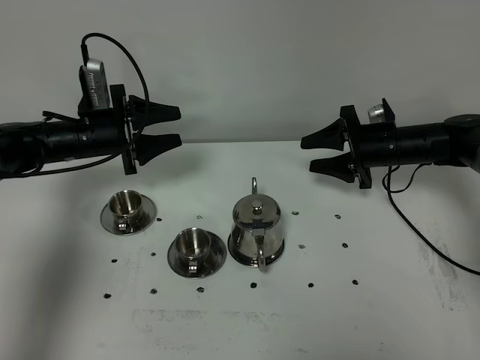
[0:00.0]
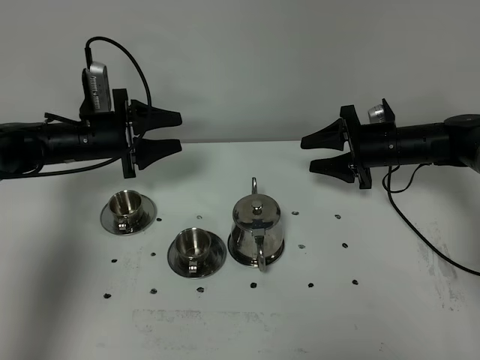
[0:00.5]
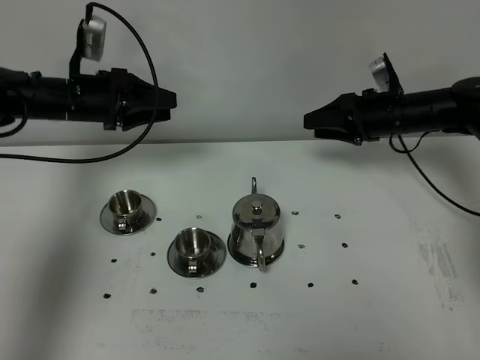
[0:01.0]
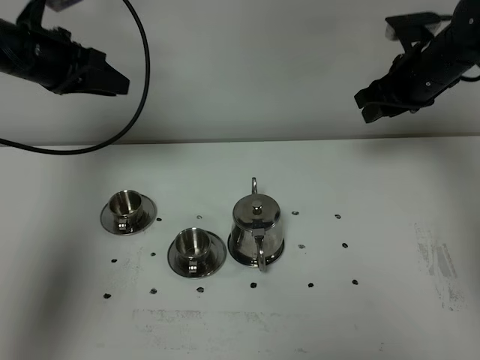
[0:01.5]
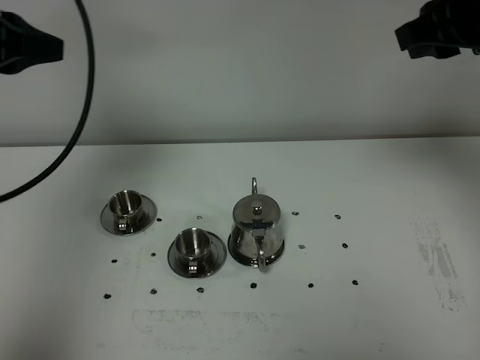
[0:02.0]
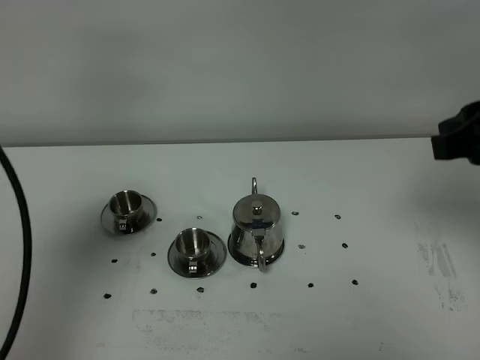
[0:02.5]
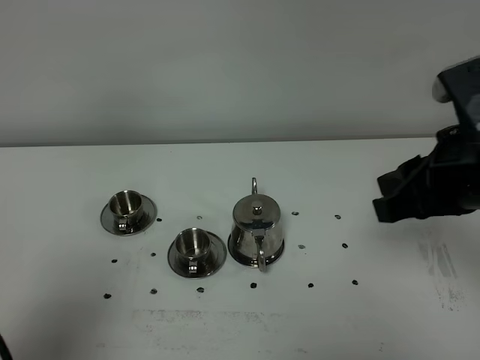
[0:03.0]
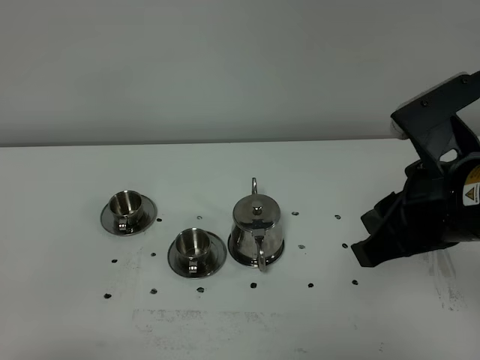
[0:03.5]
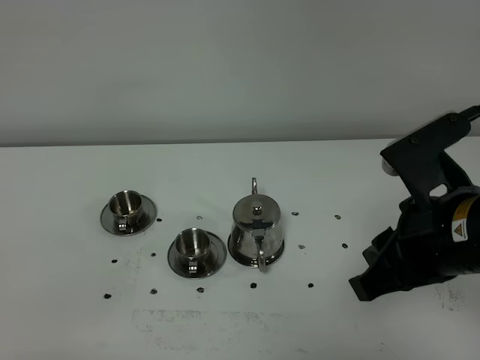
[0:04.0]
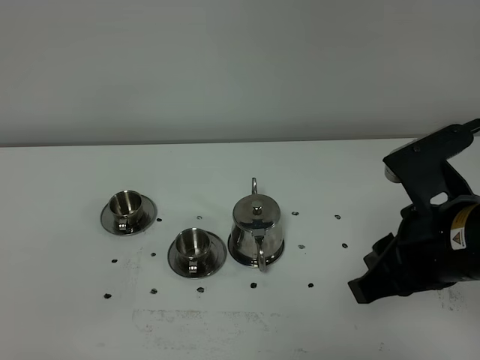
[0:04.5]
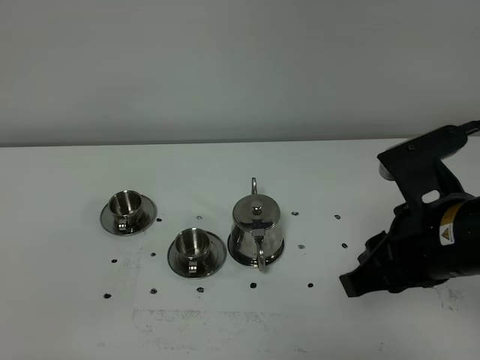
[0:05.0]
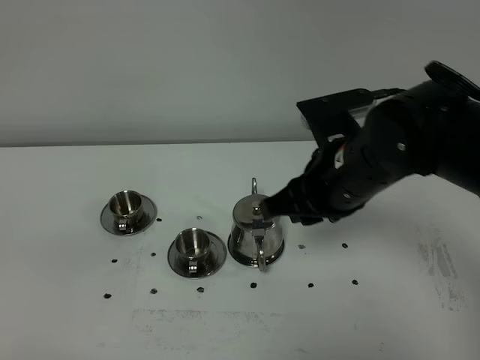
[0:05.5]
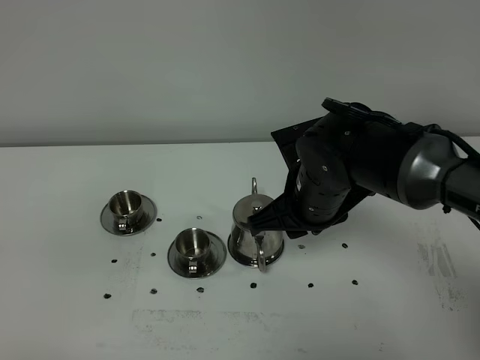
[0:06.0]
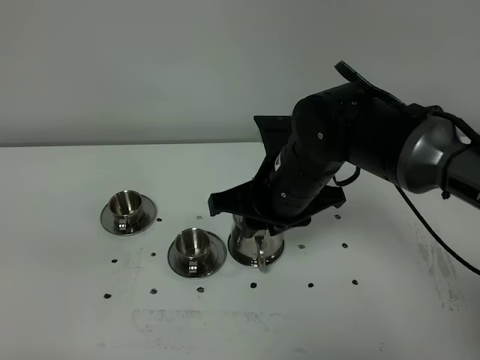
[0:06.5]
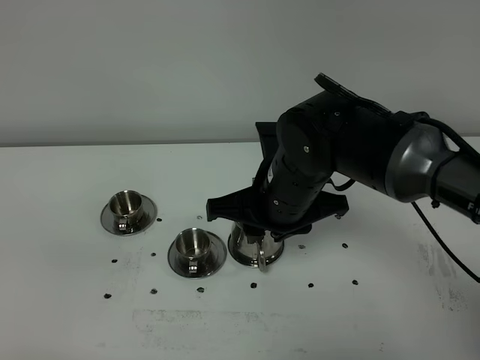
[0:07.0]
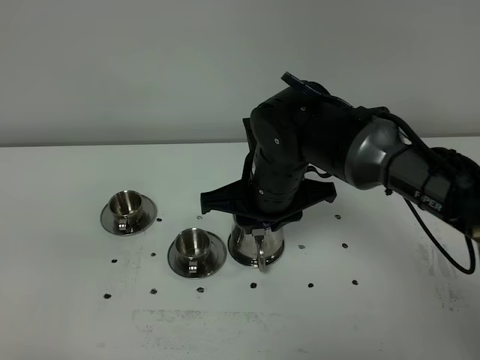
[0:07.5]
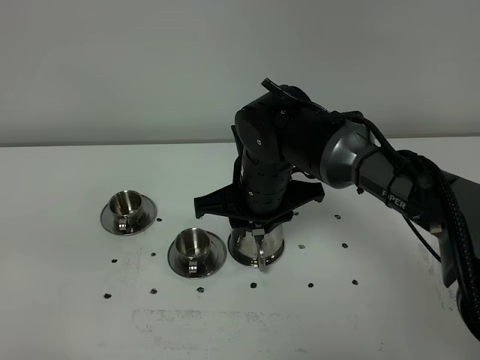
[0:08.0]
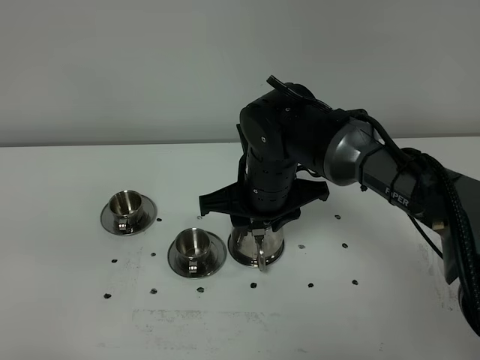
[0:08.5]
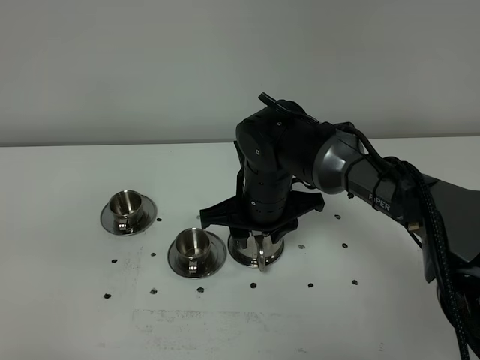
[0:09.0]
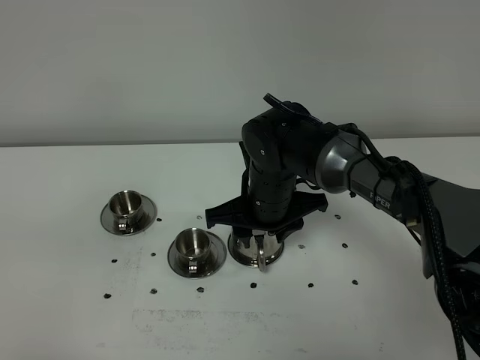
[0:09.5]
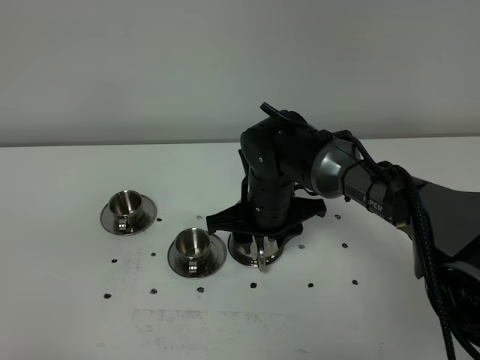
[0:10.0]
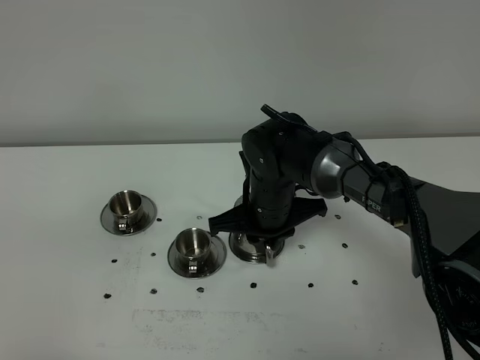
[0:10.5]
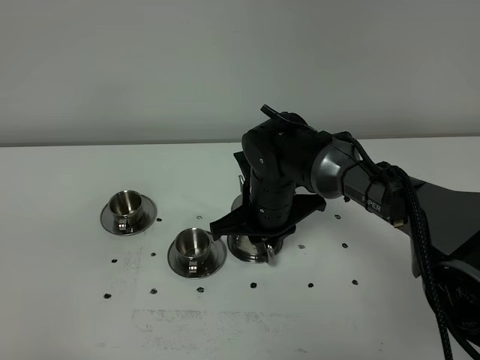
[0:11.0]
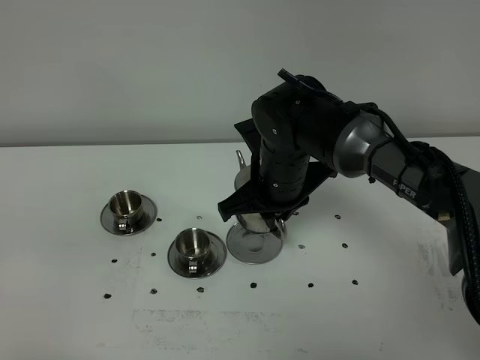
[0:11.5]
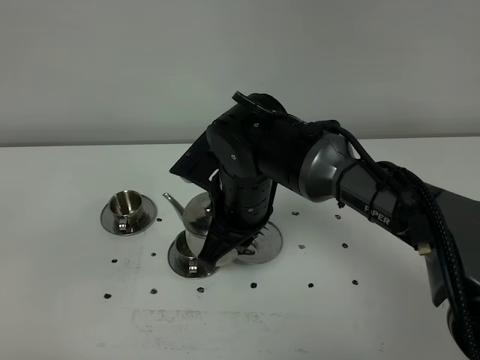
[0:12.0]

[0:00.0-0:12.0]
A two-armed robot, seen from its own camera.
Task of the whole recording: grasp the stainless steel teapot and pour the tea into the two stainless steel teacups one by one, put the stainless steel teapot back in its original place.
Step, 0:00.0 to 0:11.5: Pick up the teapot with the left gripper.
0:00.0 to 0:02.0: Both grippers travel together upward and backward, approximately 30 cm. The left gripper closes.
0:02.0 to 0:04.0: The right gripper travels backward, downward and to the left by about 20 cm. Meanwhile the left gripper shifts approximately 35 cm backward.
0:04.0 to 0:06.0: The right gripper is displaced forward, to the left and downward by roughly 20 cm.
0:06.0 to 0:08.0: The right gripper is displaced to the left by about 5 cm.
0:08.0 to 0:10.0: The right gripper heads downward, covering approximately 5 cm, and opens up.
0:10.0 to 0:12.0: The right gripper moves upward, approximately 5 cm, and closes up.

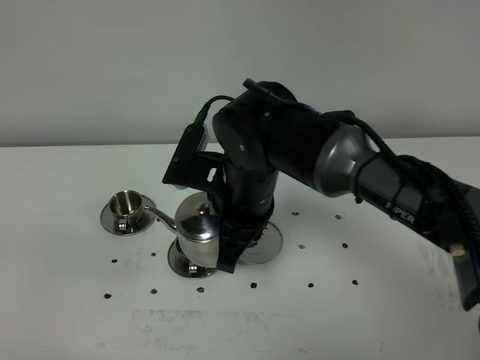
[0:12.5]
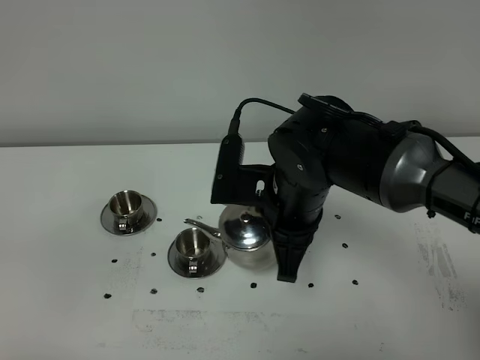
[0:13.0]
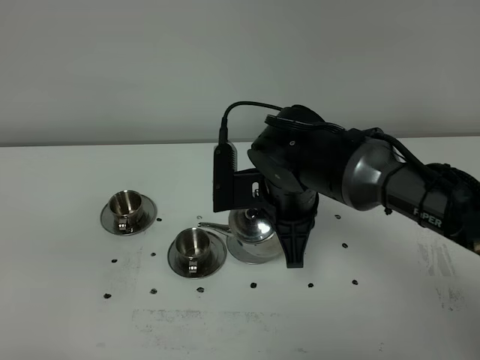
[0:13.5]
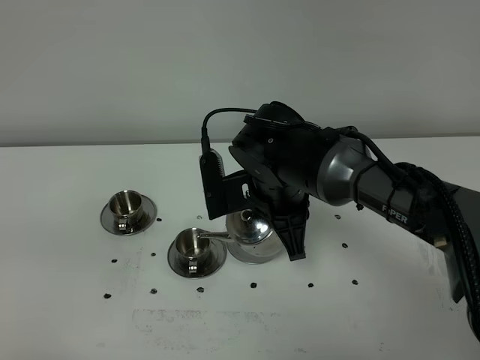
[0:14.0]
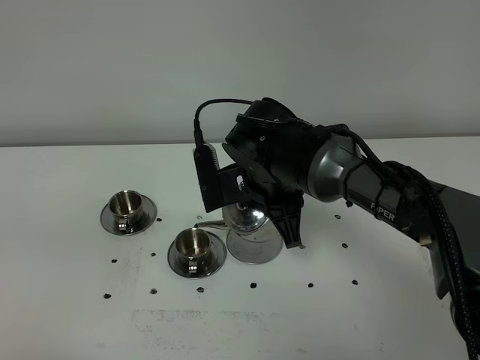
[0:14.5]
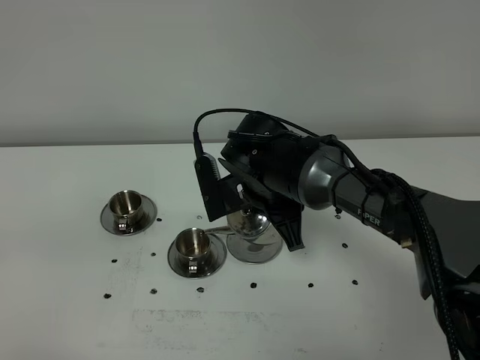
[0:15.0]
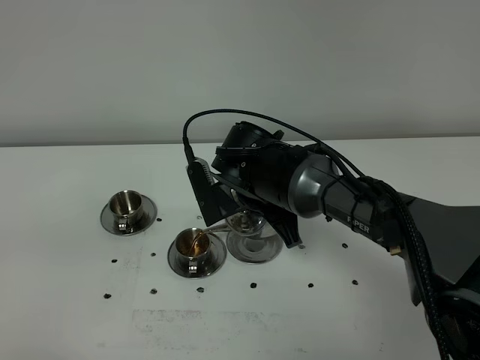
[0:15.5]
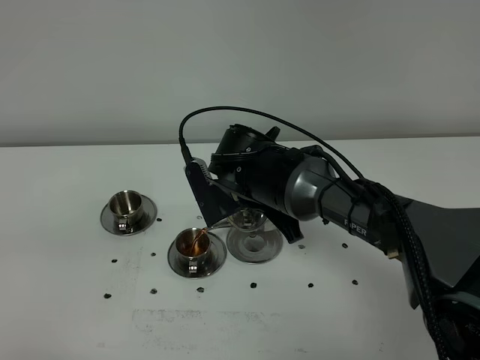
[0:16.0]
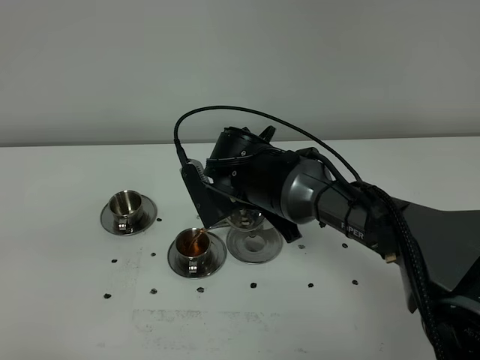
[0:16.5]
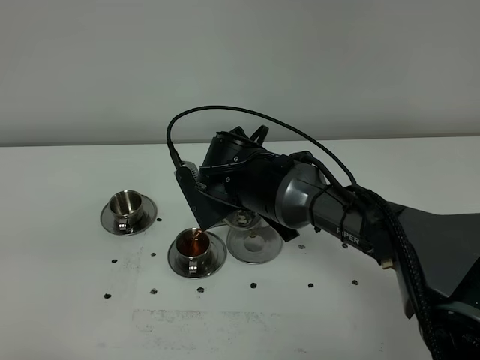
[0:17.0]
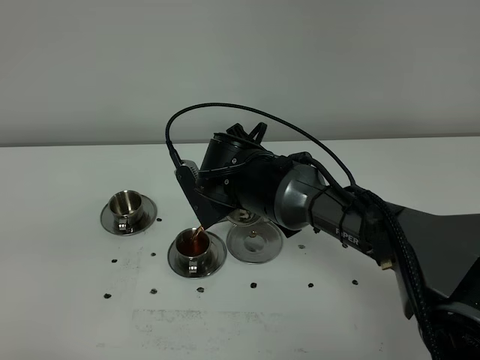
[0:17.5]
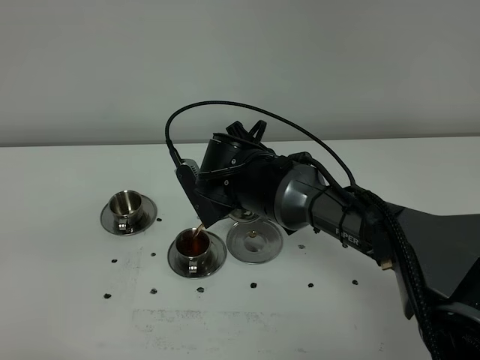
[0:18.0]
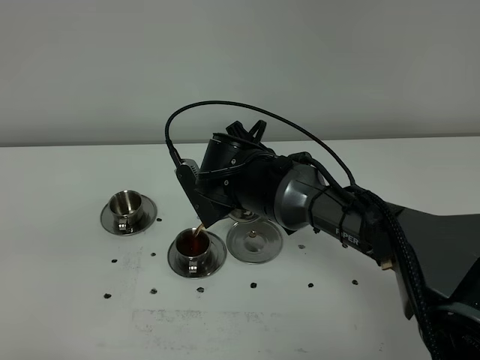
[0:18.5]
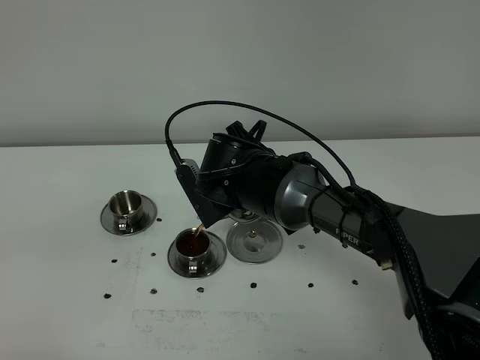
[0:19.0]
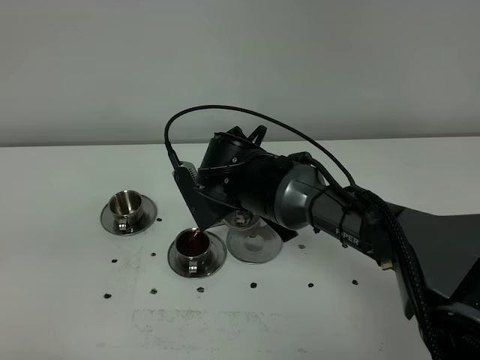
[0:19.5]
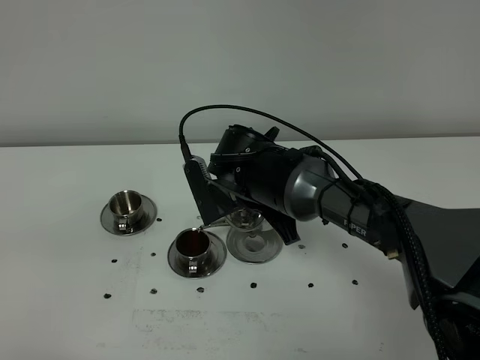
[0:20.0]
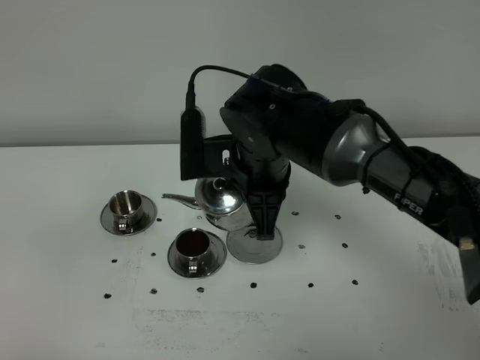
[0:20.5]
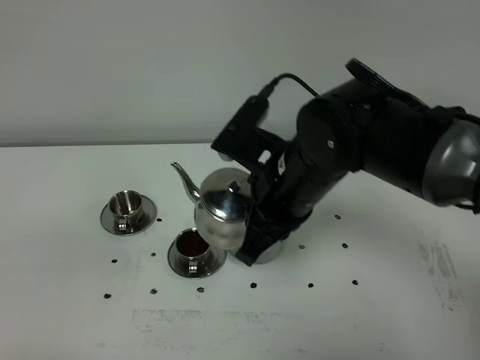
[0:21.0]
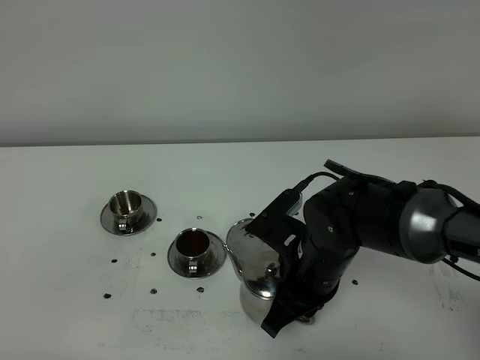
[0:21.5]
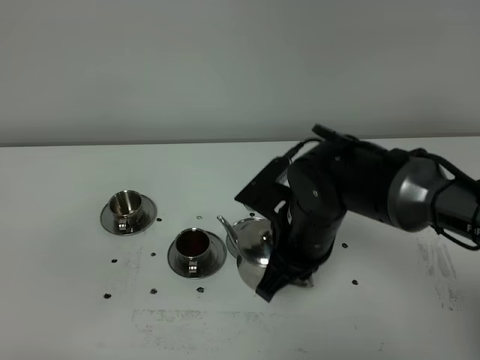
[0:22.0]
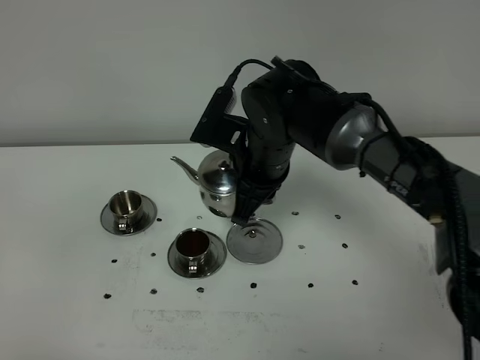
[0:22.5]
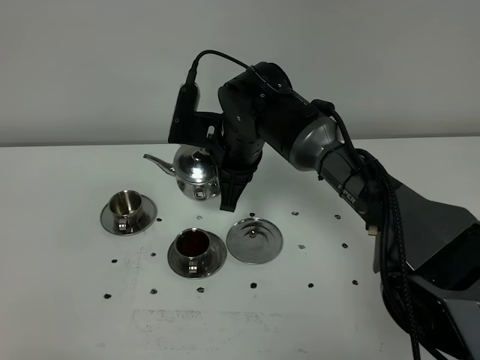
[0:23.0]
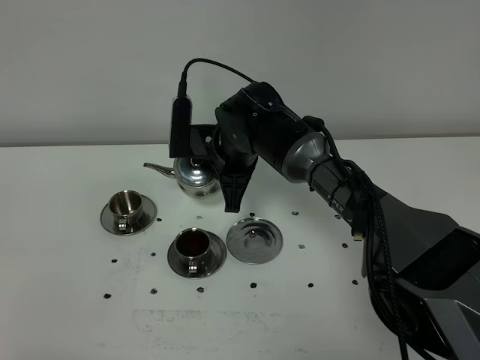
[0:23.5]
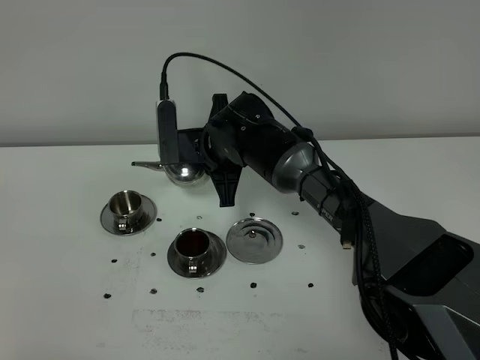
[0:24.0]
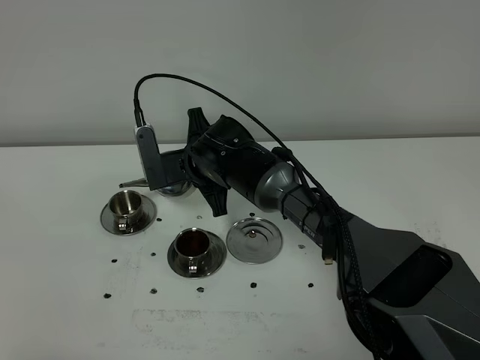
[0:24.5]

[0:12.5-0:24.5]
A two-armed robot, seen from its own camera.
Task of the whole recording: grasp the stainless steel teapot and pour the tea into the two stainless steel teacups one by one, put the stainless steel teapot back in its original place.
0:12.5 to 0:14.5: The right gripper changes place by some 5 cm.
0:14.5 to 0:16.5: The grippers make only small movements.
0:16.5 to 0:18.5: The grippers stay close to where they were, moving slightly.
0:18.5 to 0:20.5: The right gripper is displaced upward by some 5 cm.
0:22.5 to 0:24.5: The right gripper shifts roughly 10 cm downward, to the left and forward.

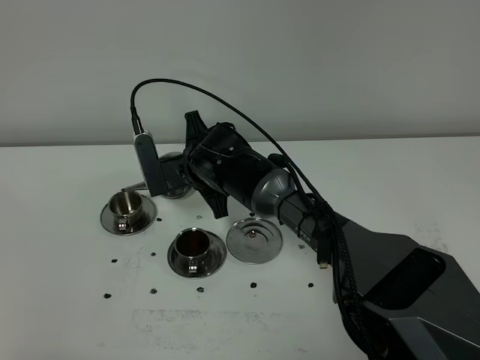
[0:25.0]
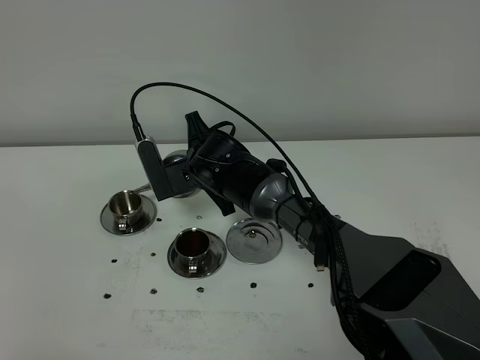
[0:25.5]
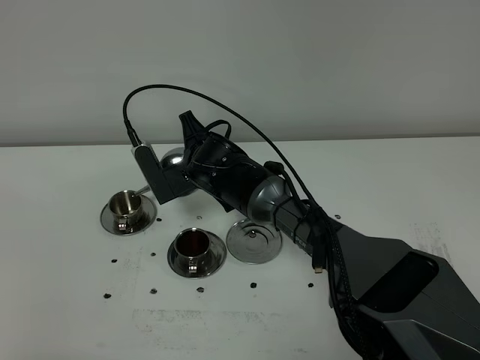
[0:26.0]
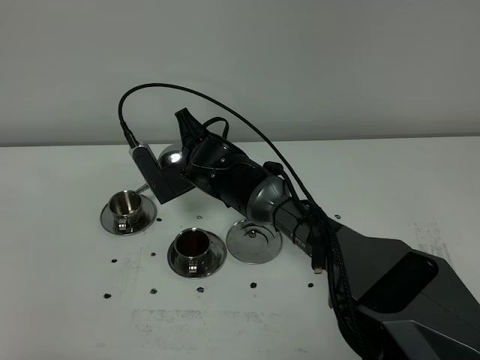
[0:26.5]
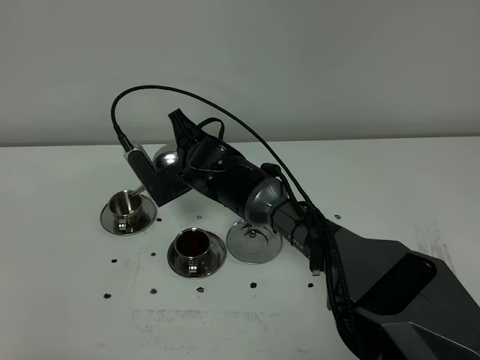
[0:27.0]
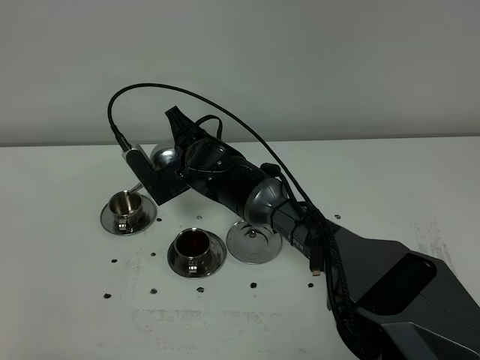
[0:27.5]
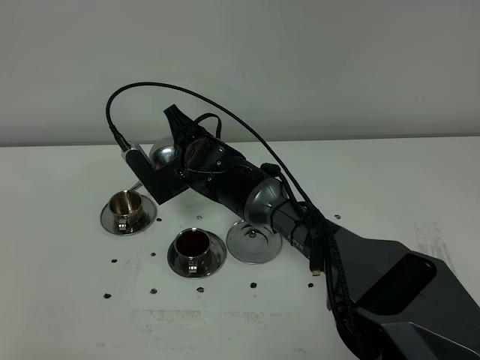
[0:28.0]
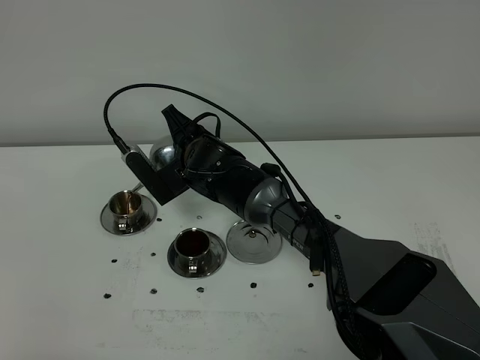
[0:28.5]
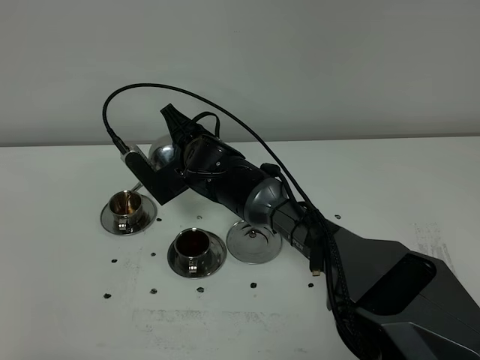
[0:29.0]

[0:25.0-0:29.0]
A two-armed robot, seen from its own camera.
Task of the whole recording: grasp the stainless steel teapot and pour the tea into the two stainless steel teacups one by one, put the stainless steel teapot back in its original place.
0:25.0 to 0:27.0: The grippers move only a little.
0:27.0 to 0:29.0: The grippers stay close to where they were, moving slightly.
